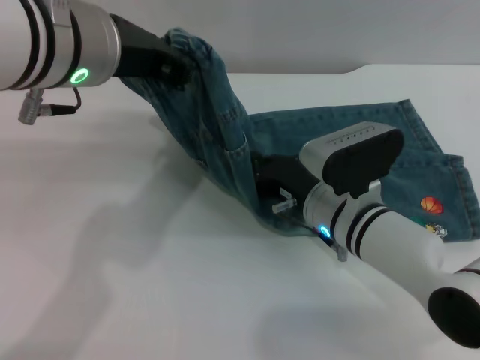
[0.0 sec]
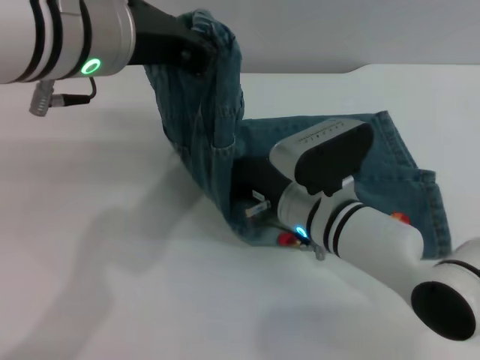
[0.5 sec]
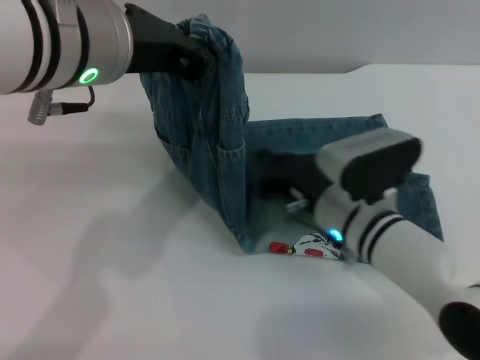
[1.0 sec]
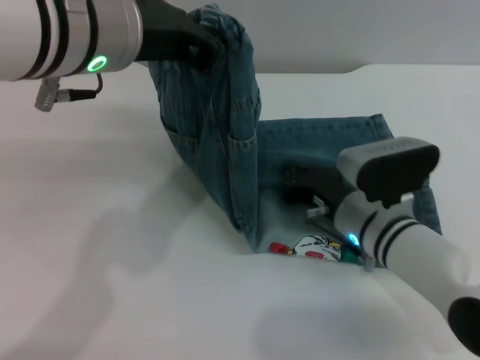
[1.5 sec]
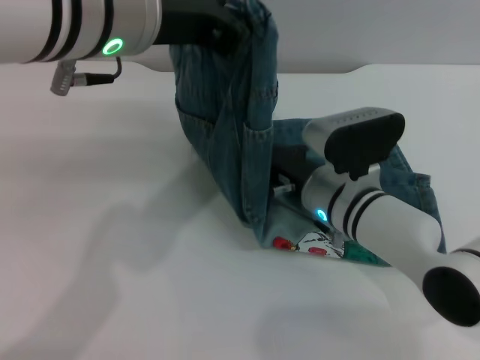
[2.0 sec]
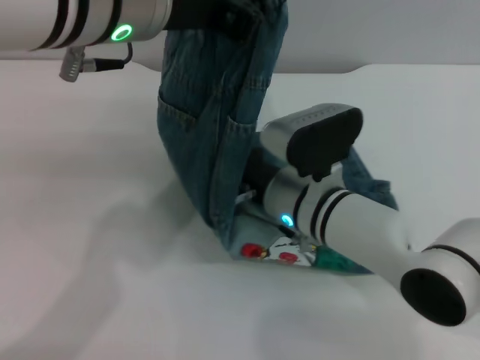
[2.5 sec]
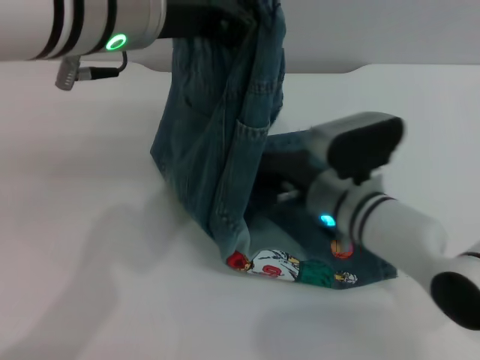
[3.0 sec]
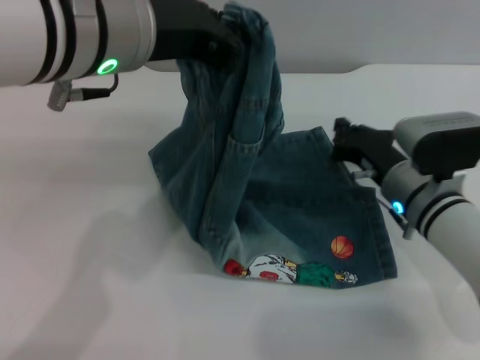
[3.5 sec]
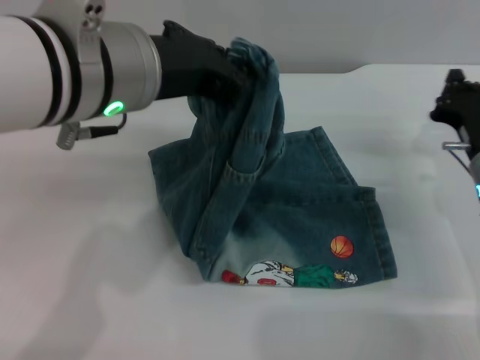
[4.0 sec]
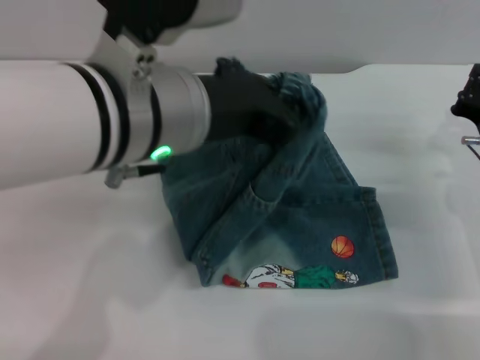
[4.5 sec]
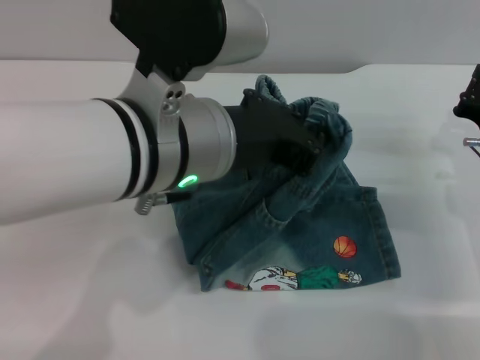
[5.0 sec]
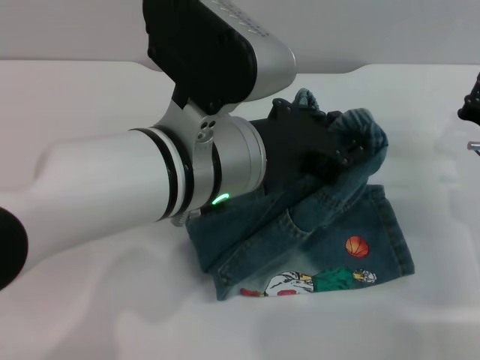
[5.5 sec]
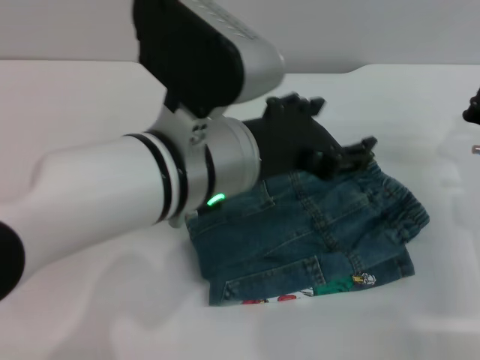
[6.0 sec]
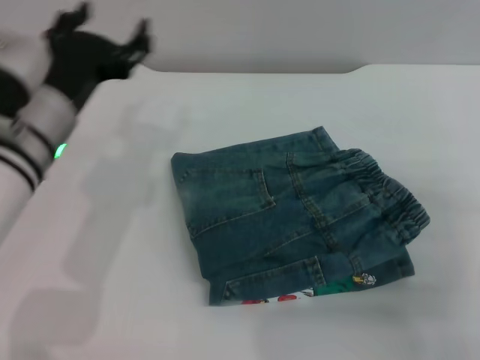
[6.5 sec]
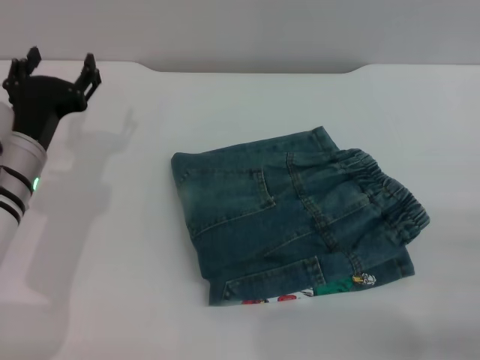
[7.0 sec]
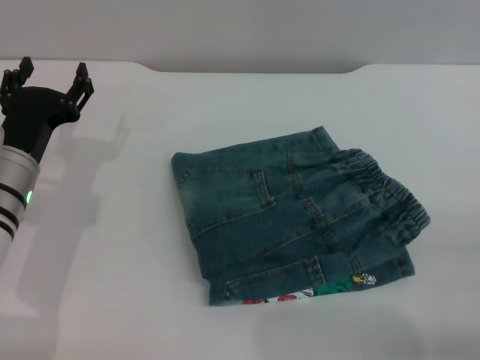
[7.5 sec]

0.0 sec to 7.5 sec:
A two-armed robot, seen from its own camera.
Step, 0.0 sec to 6.0 sec: Fold the pants from left to right with the left gripper.
2.0 sec to 4.0 sec: The right gripper goes roughly 15 cm to the right.
4.0 sec to 5.5 sec: The left gripper heads downward and to the right, covering approximately 10 cm.
5.5 sec to 7.5 sec: The right gripper goes some 15 cm backward, and opens up, while the left gripper is displaced to the left and downward by approximately 25 cm, and opens.

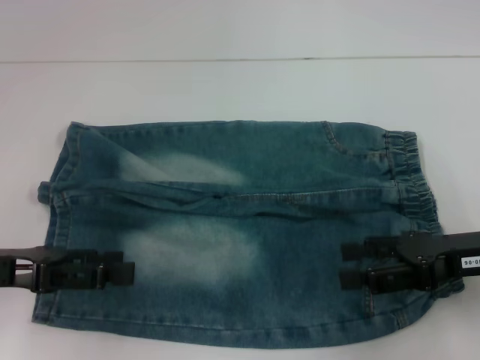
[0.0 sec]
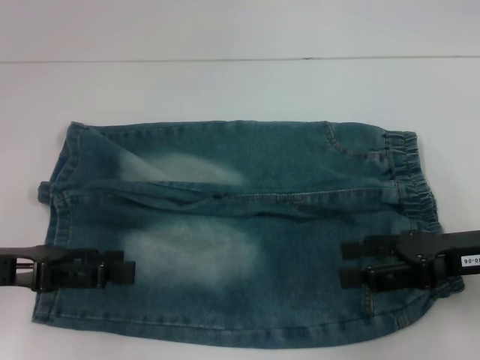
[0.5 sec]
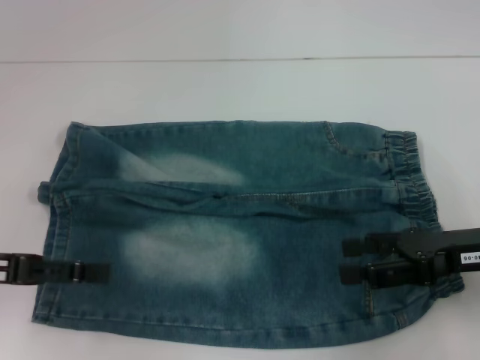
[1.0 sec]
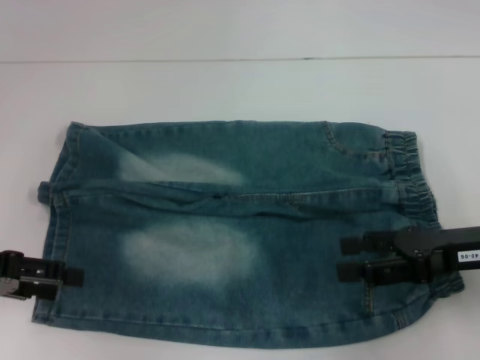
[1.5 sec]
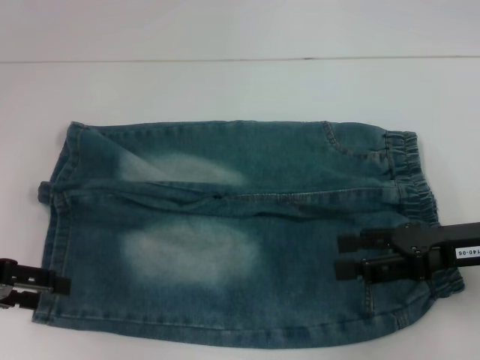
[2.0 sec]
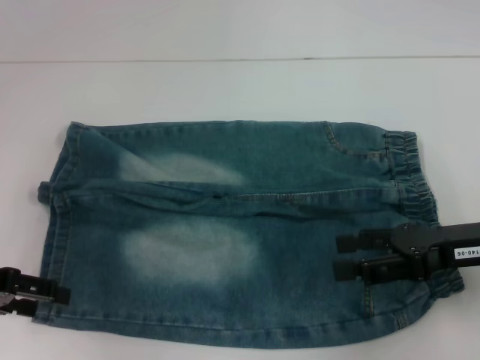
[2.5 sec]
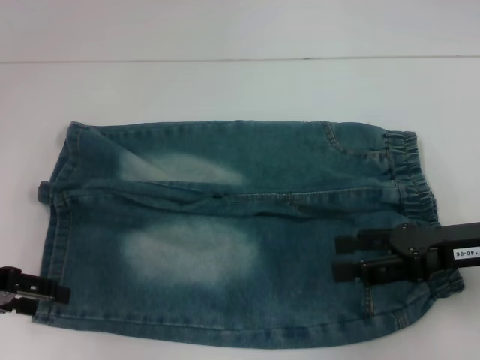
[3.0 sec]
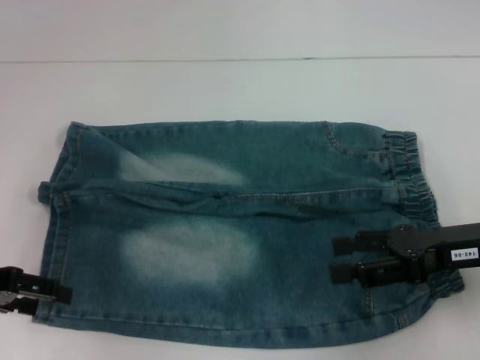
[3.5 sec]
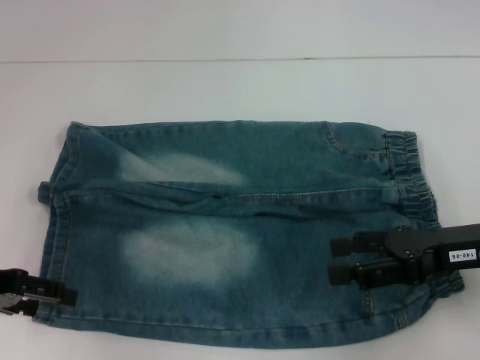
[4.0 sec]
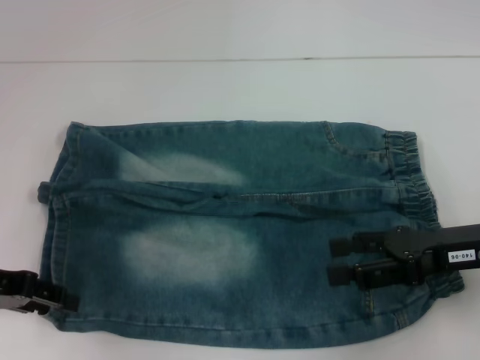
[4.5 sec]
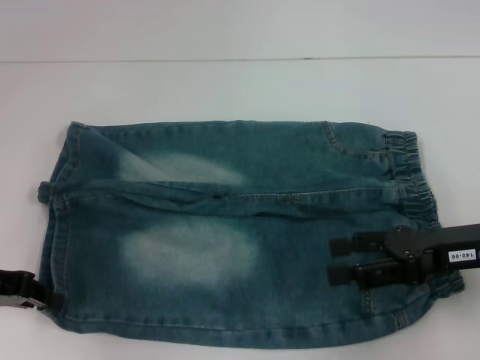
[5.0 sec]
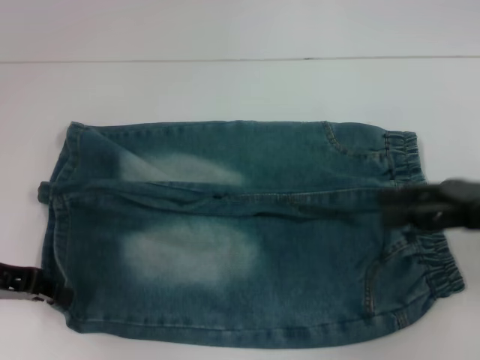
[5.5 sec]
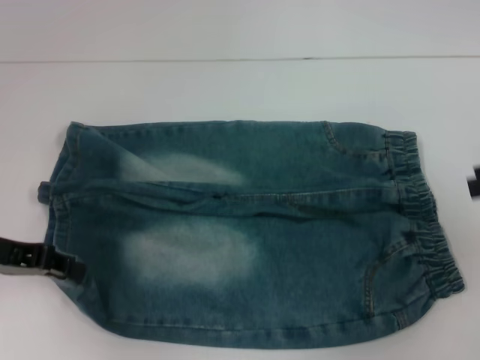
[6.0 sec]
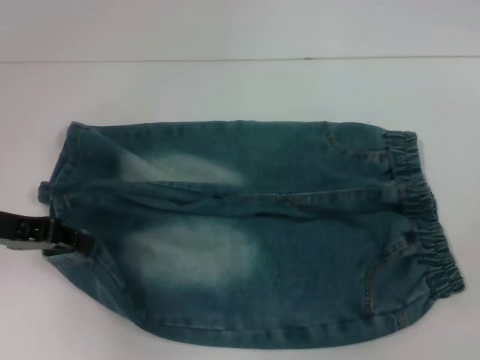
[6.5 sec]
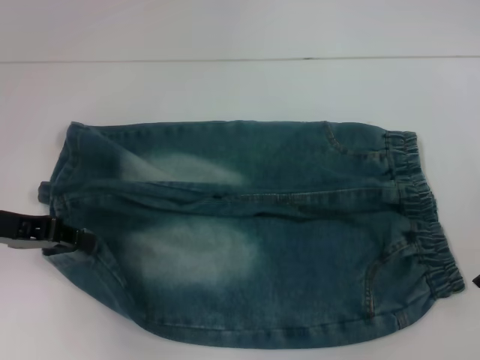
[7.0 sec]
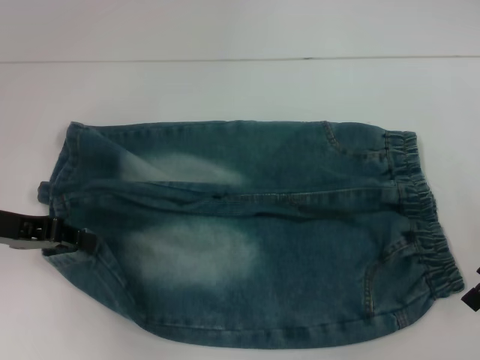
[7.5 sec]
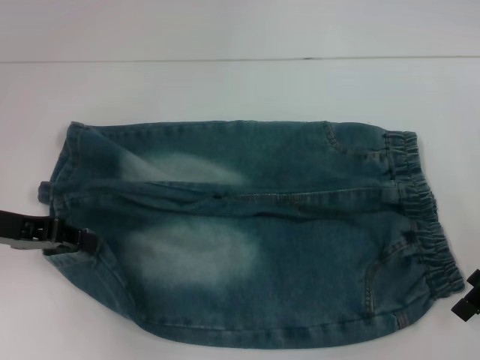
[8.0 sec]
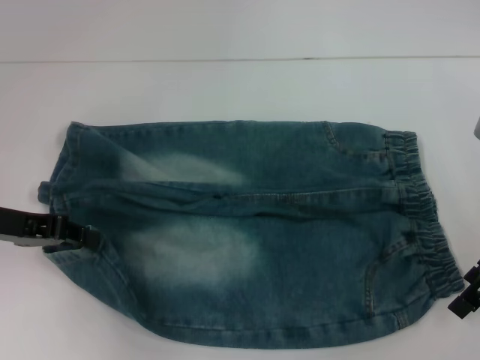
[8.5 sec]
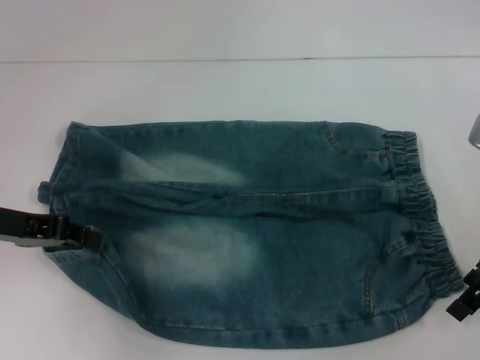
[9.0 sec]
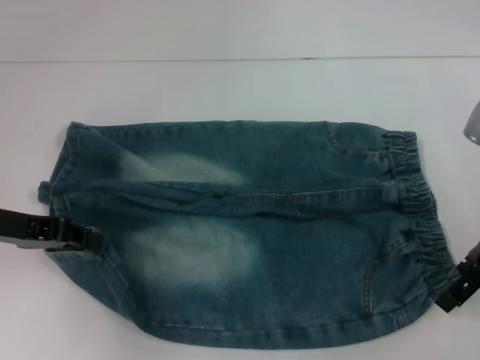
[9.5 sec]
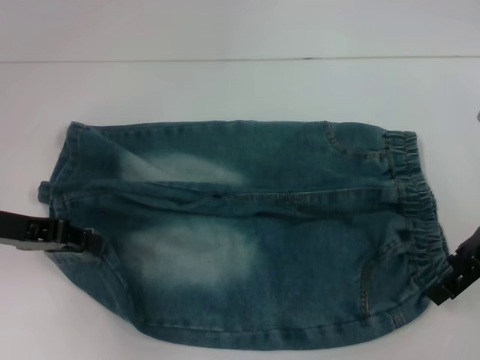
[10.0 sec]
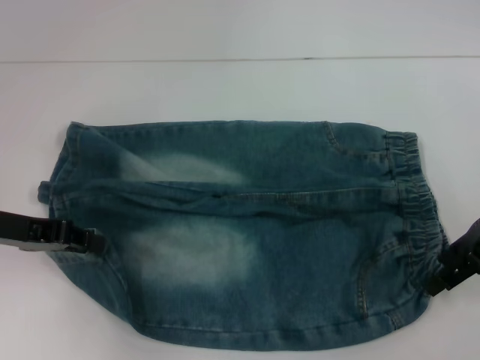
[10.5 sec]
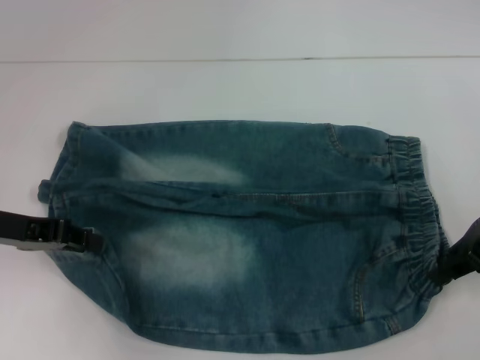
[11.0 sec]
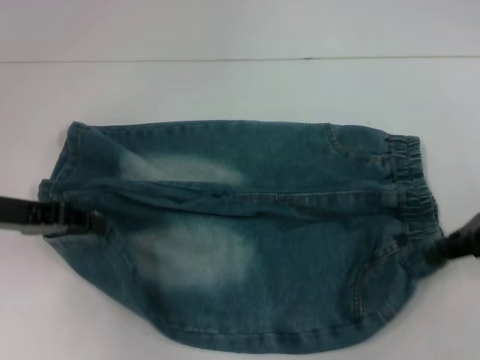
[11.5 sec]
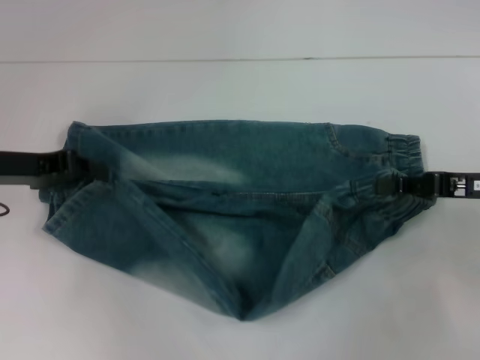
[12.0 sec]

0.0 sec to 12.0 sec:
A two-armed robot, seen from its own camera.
Step, 0.0 sec to 4.5 sec: Grab the lower left pant leg with your left hand.
Step, 5.0 sec to 10.5 sec: Hold the lower right waistband with your right hand.
0.0 sec to 2.0 sec: The left gripper changes place by approximately 5 cm.
2.0 sec to 4.0 sec: Both grippers stay put.
4.0 sec to 6.0 sec: The left gripper closes up, while the right gripper moves to the right and upward, roughly 15 cm.
6.0 sec to 8.0 sec: The right gripper goes roughly 10 cm to the left and downward.
8.0 sec to 10.0 sec: The grippers make only small movements.
10.0 sec to 12.0 sec: The right gripper ends up roughly 5 cm from where it was, and closes up.

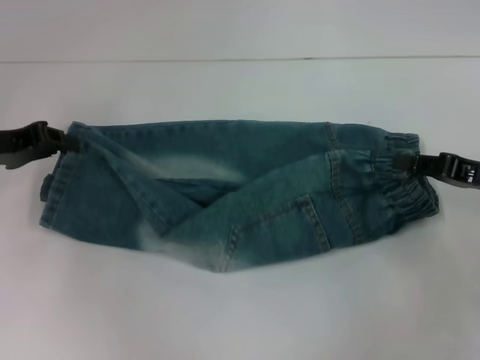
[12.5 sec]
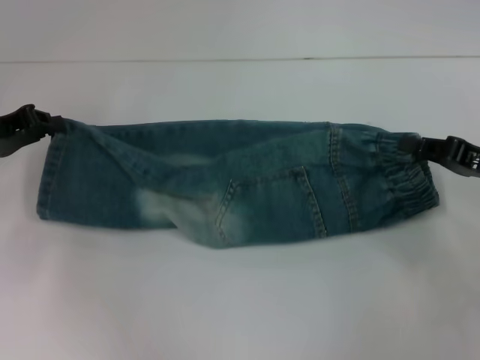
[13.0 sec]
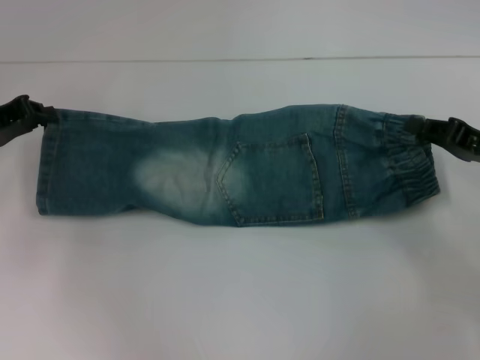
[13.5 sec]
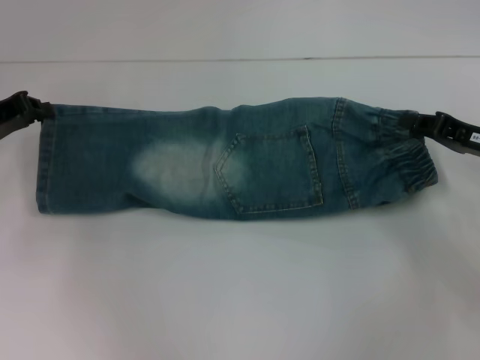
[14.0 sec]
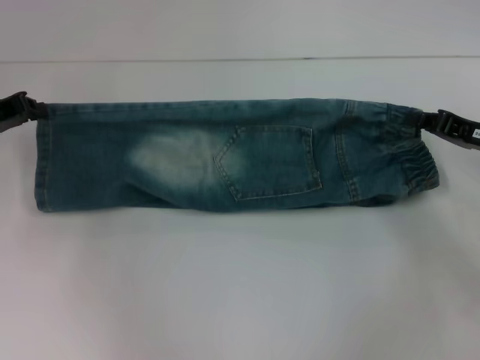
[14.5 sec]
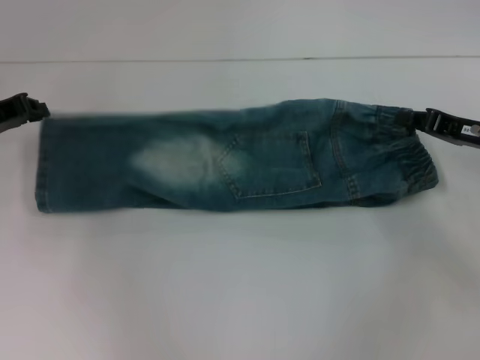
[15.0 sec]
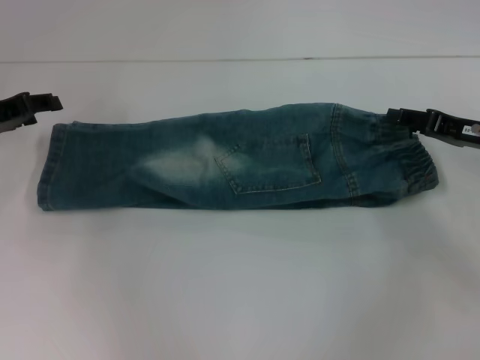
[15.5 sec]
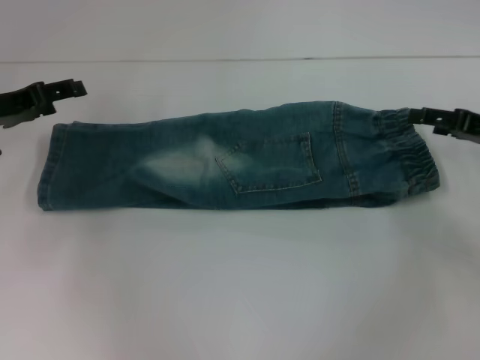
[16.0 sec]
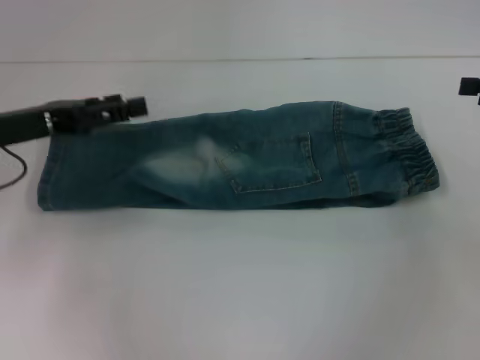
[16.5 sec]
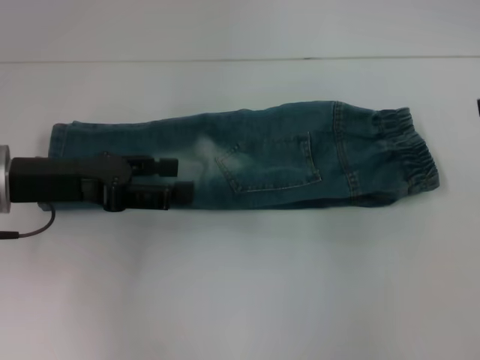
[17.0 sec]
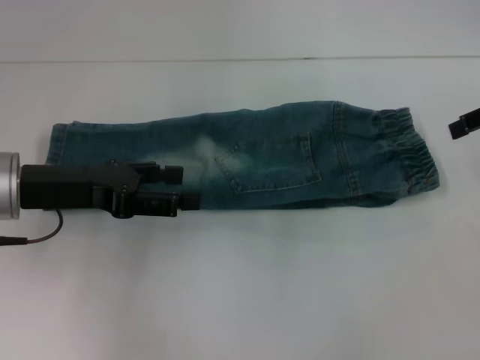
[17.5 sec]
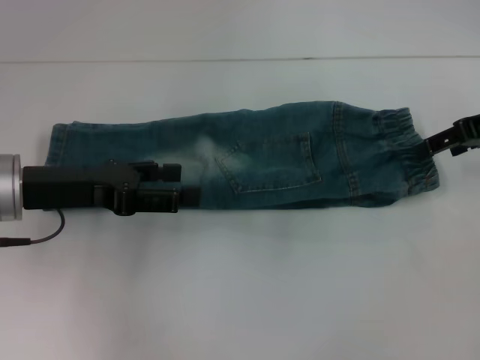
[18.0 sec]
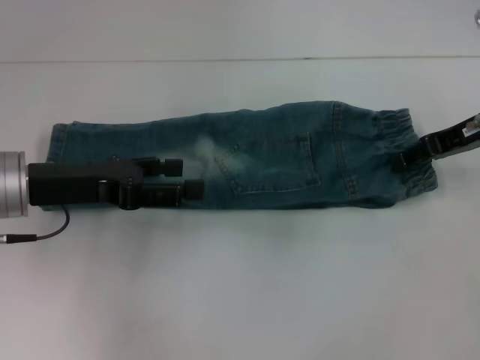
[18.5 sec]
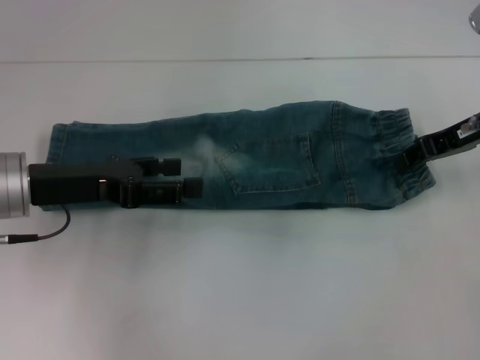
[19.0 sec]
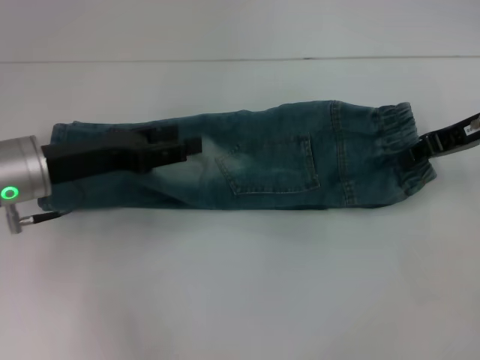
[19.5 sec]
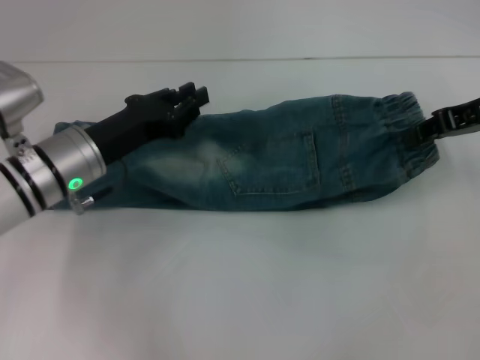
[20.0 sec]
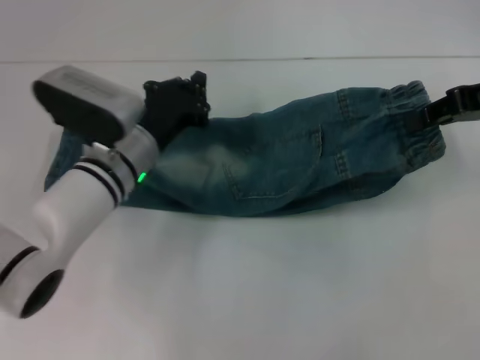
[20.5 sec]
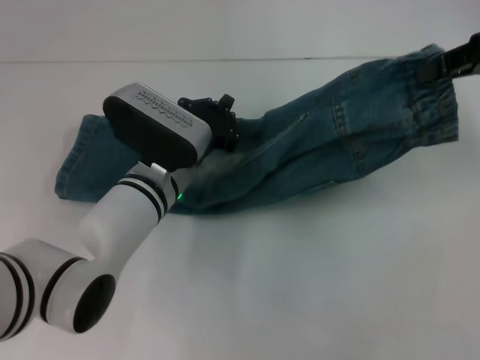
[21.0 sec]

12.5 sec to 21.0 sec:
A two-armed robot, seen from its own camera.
Step, 12.5 sec to 15.0 sec: Fold upward with your right hand.
Step, 15.5 sec to 18.5 sec: Grab the waistband with your right hand.
14.5 sec to 16.5 sec: The left gripper shifts by about 5 cm, and opens, while the right gripper moves upward and to the right, some 10 cm, and opens up.
16.5 sec to 19.0 sec: The right gripper goes about 10 cm to the left, and closes; the left gripper shifts by roughly 5 cm.
19.0 sec to 21.0 sec: The left gripper heads to the right and downward, covering some 15 cm, and closes its fingers, while the right gripper moves upward, about 10 cm.
